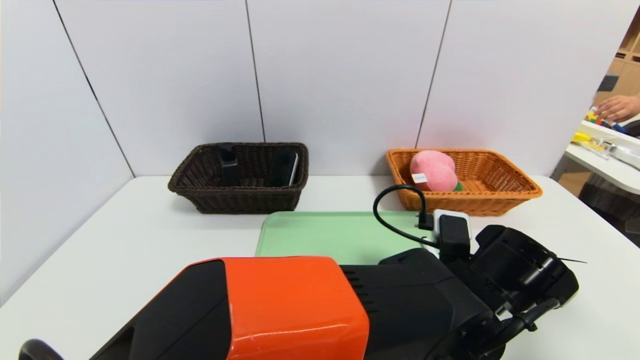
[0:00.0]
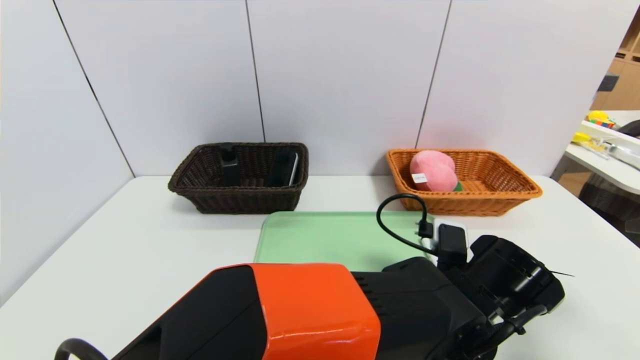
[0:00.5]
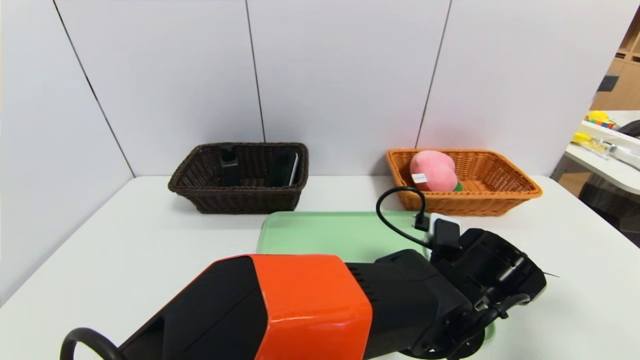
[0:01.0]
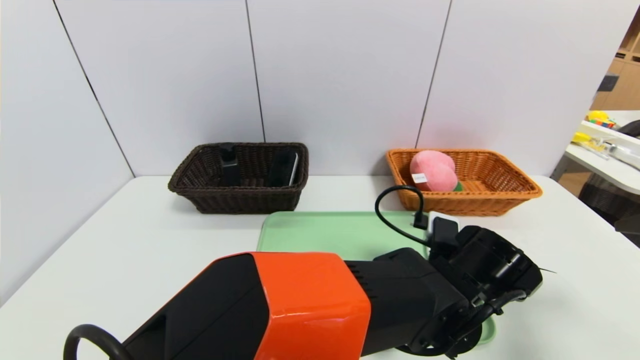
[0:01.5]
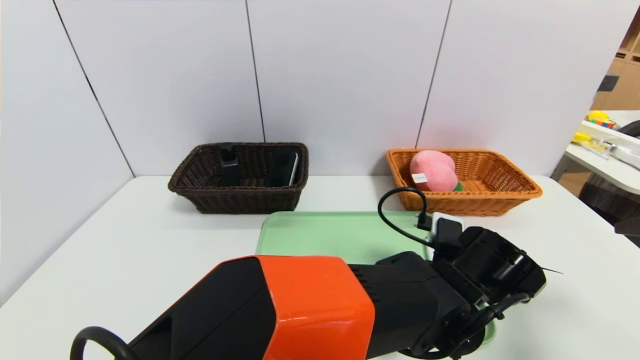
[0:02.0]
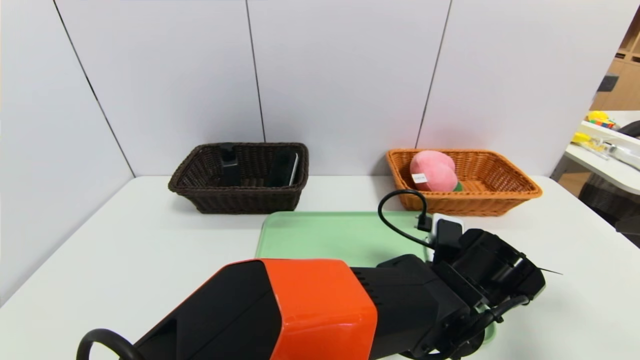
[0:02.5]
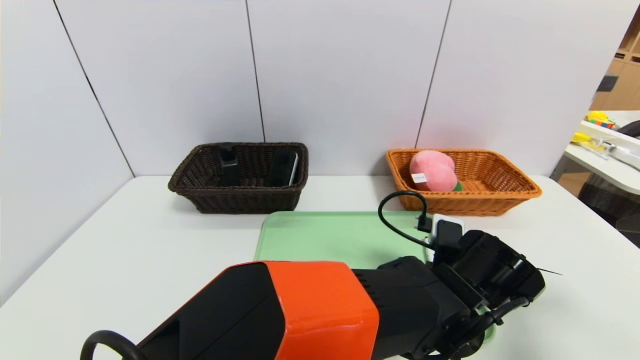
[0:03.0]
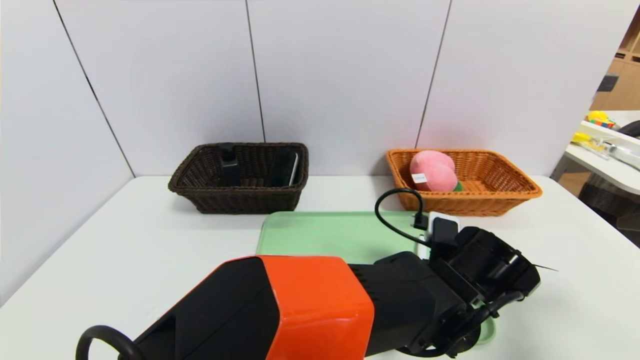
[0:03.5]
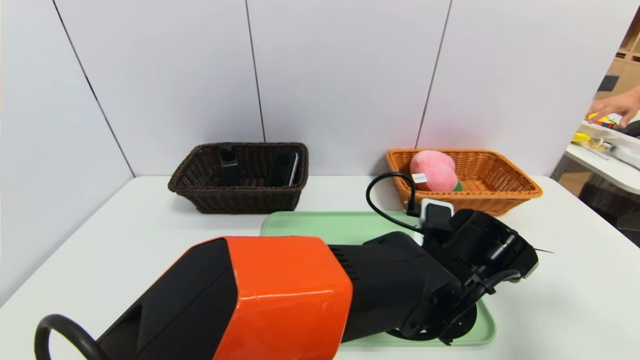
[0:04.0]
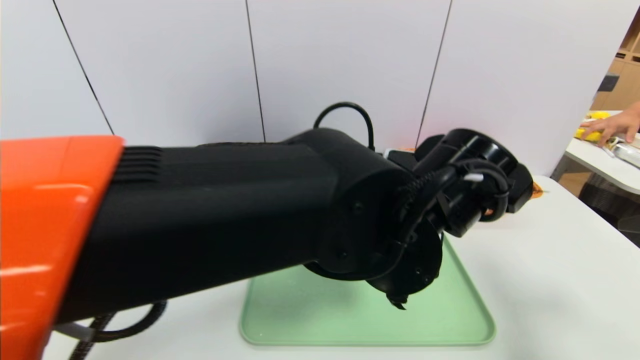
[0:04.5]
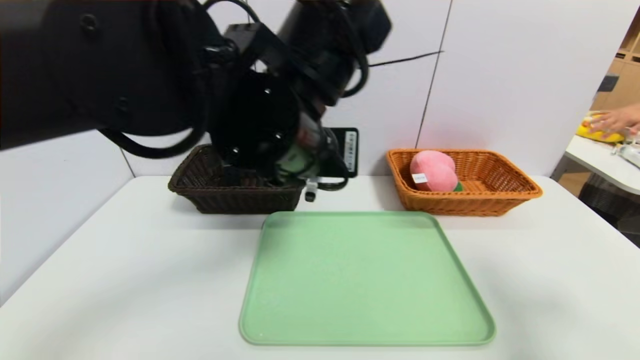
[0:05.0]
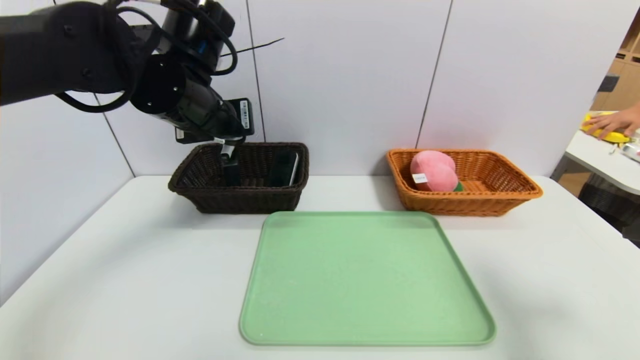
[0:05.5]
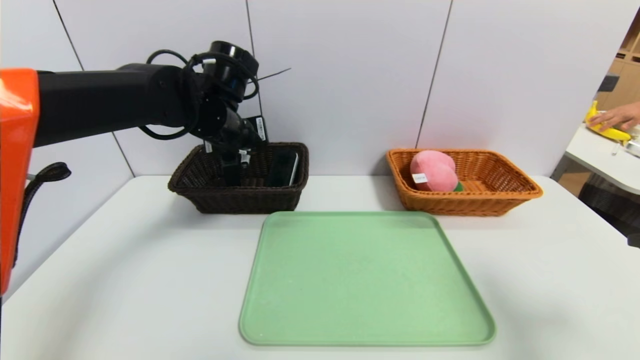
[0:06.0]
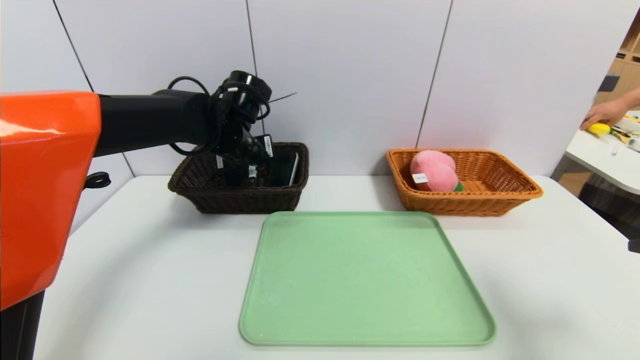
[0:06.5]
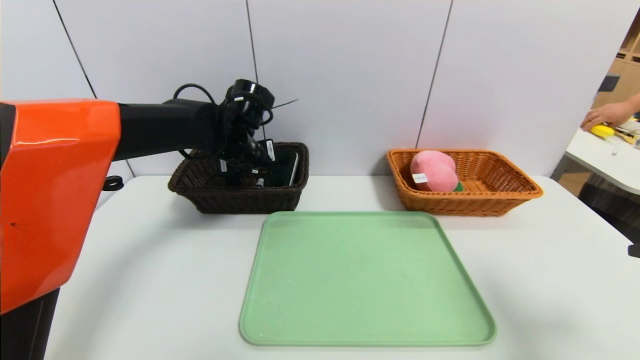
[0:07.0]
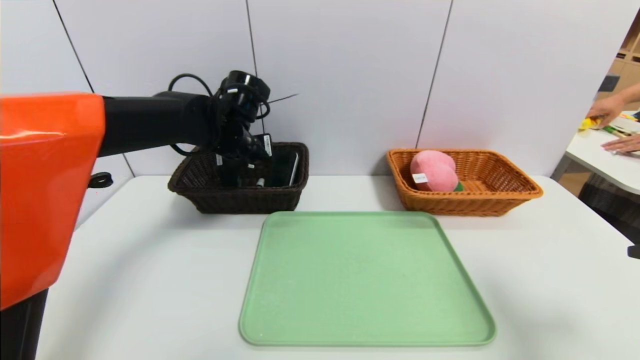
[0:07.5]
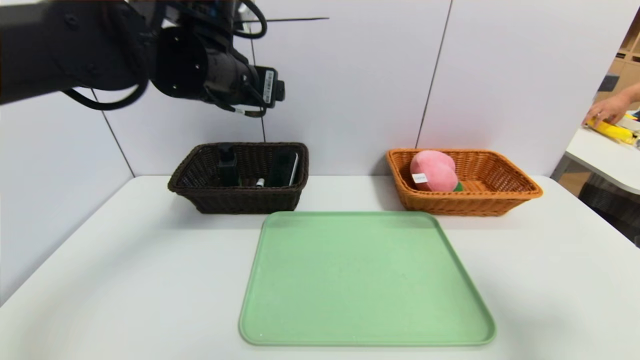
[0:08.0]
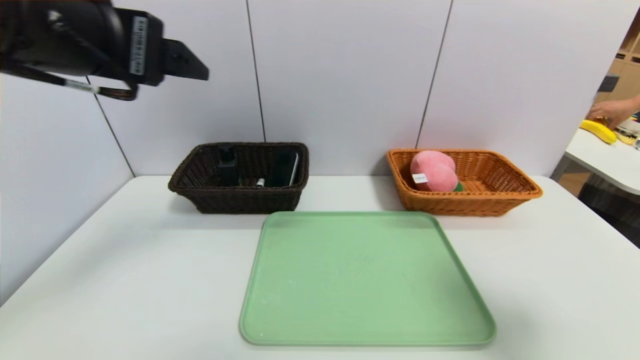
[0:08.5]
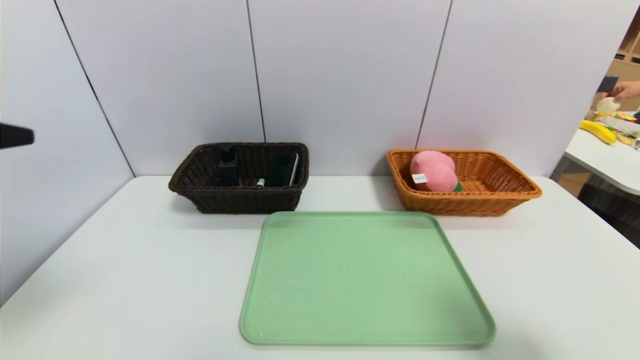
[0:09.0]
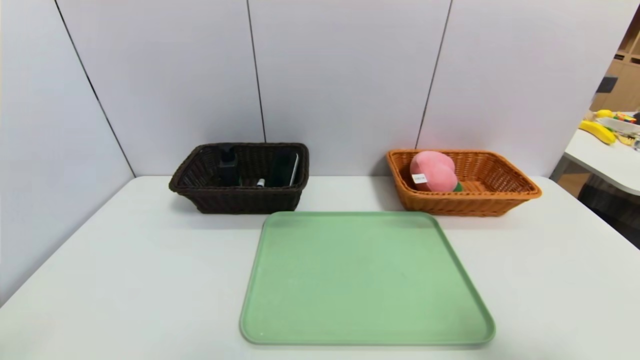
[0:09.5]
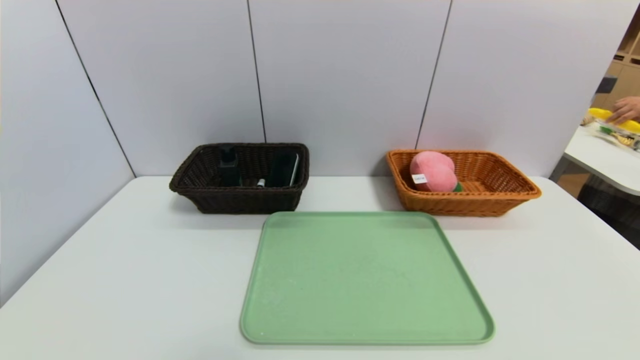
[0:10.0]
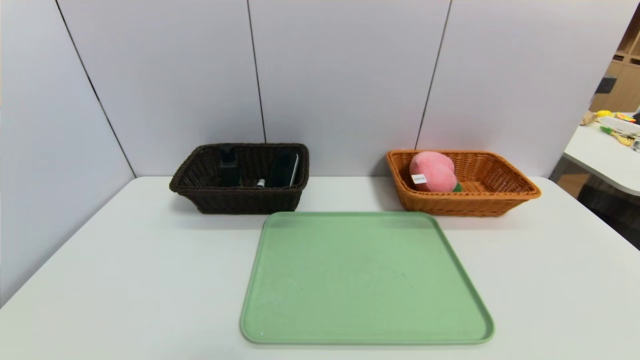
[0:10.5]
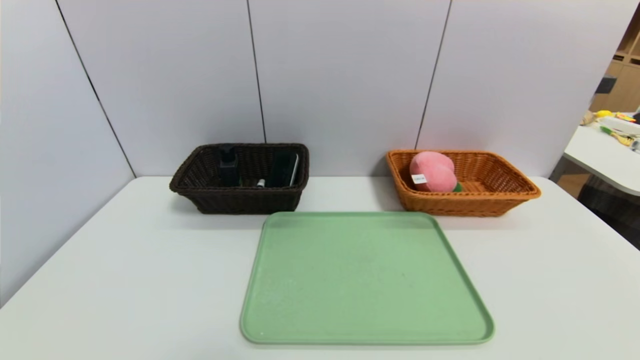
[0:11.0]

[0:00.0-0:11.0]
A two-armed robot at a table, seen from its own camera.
Task of the whole recording: place the food in the right basket with the right gripper, and place the non food items in the left basket with the left gripper.
Step, 0:00.0 to 0:08.0: Grasp the black marker and put it in the left basket.
0:00.0 to 0:02.0: There are only small adjustments of the grippers.
0:02.0 to 0:03.5: The left gripper closes.
0:03.5 to 0:05.5: The left gripper moves to the left and upward, roughly 35 cm.
0:05.5 to 0:07.5: The left gripper moves forward and downward, roughly 10 cm, and opens up.
0:07.5 to 0:09.0: The right gripper shifts by roughly 5 cm. Meanwhile the left gripper goes approximately 40 cm backward, to the left and upward.
0:09.0 to 0:11.0: Both grippers travel together backward and downward, about 20 cm.

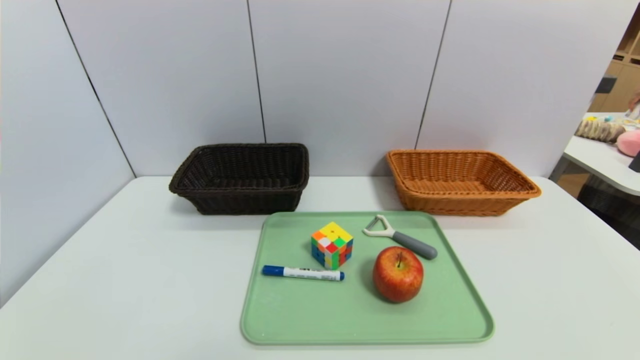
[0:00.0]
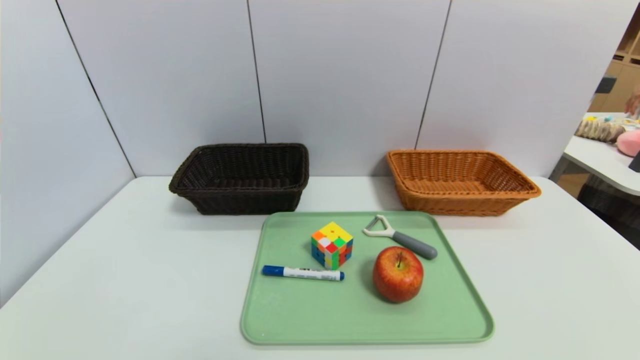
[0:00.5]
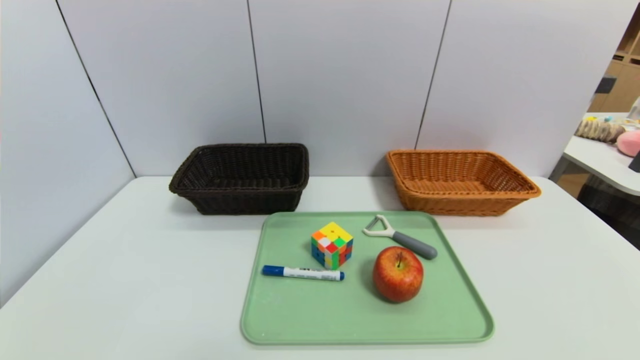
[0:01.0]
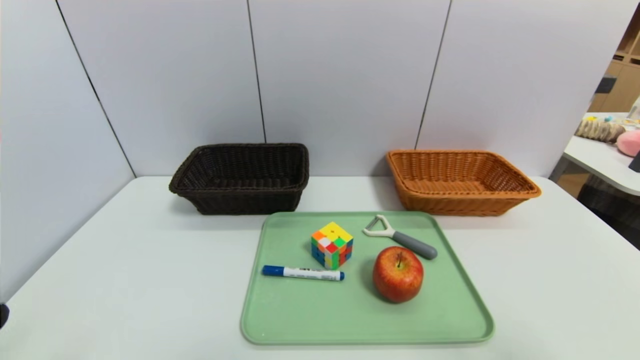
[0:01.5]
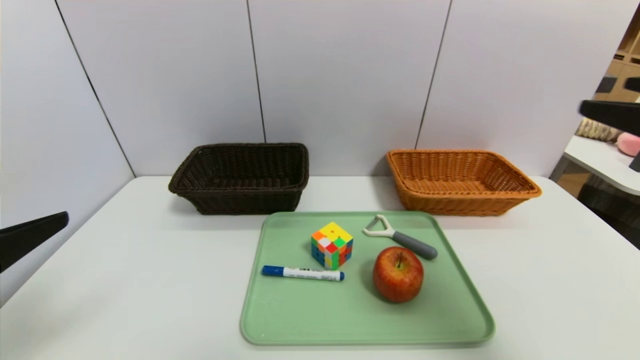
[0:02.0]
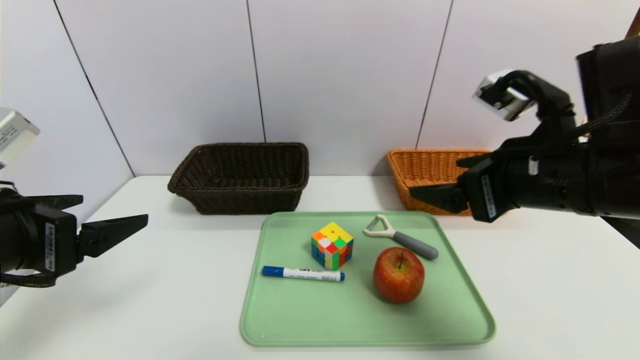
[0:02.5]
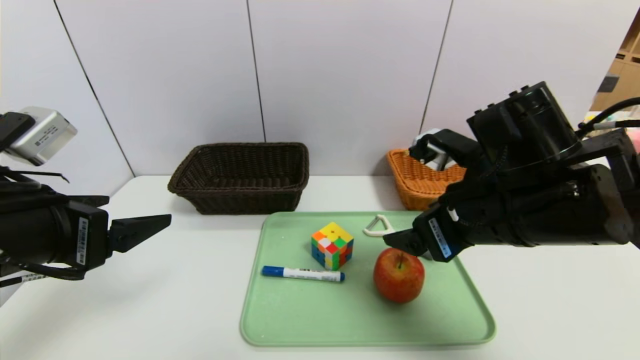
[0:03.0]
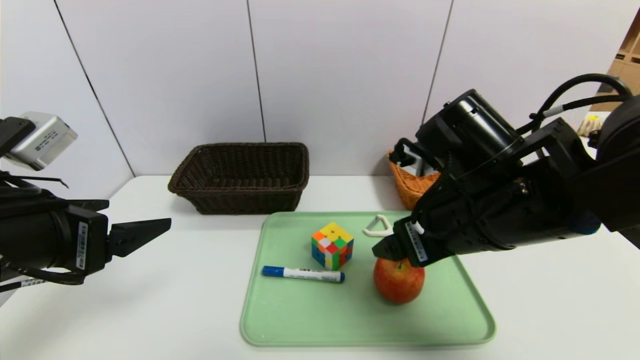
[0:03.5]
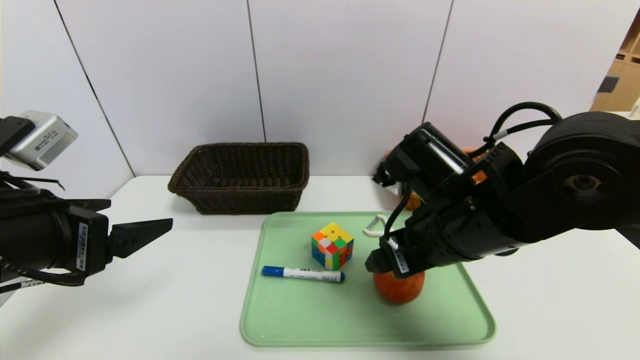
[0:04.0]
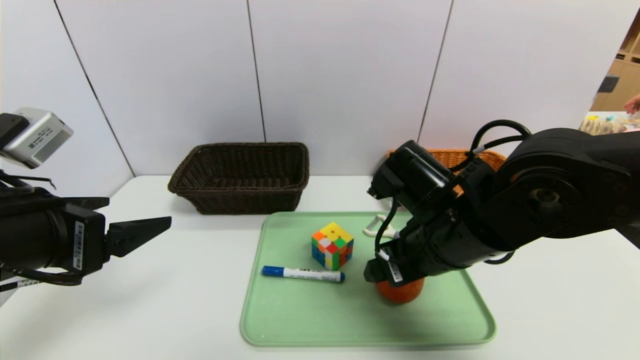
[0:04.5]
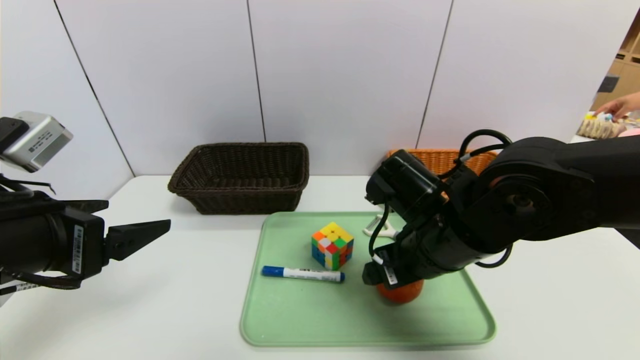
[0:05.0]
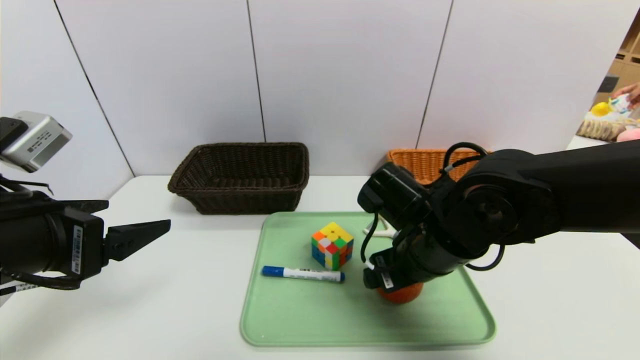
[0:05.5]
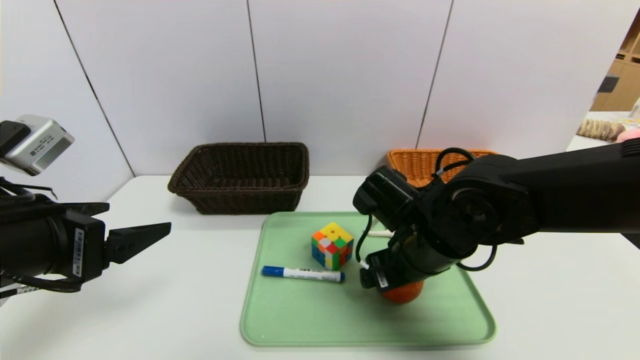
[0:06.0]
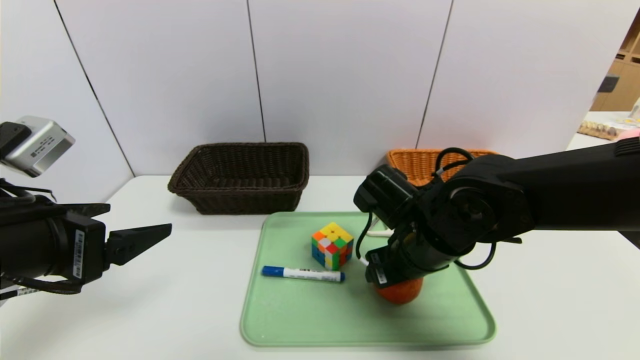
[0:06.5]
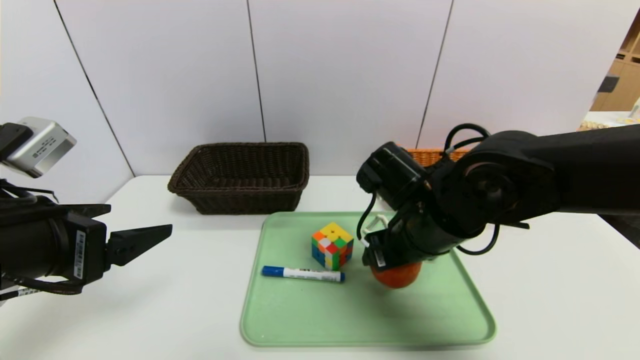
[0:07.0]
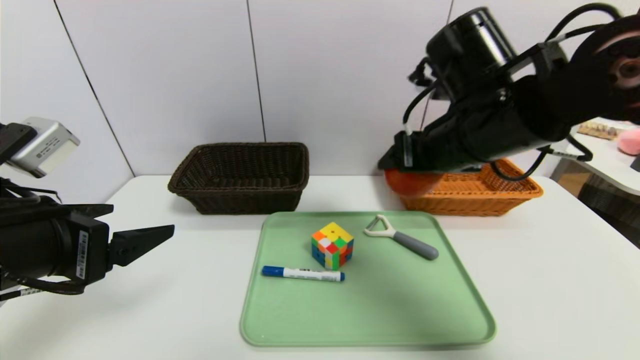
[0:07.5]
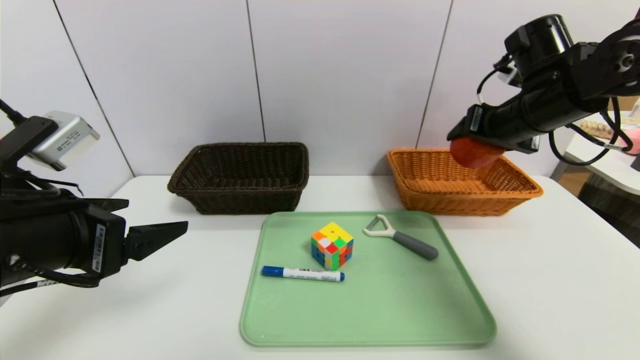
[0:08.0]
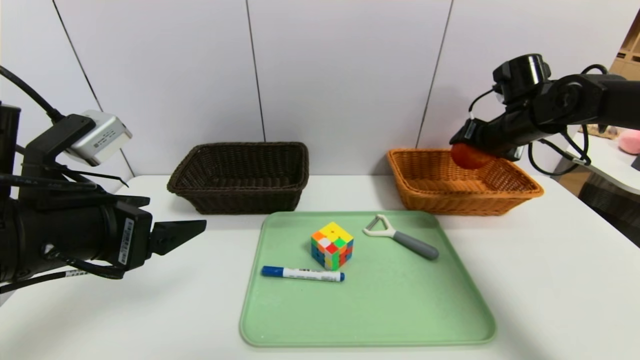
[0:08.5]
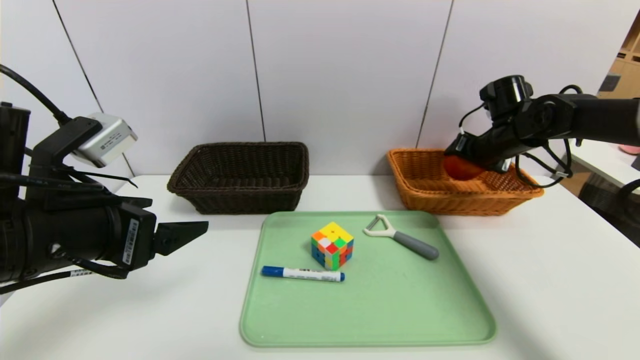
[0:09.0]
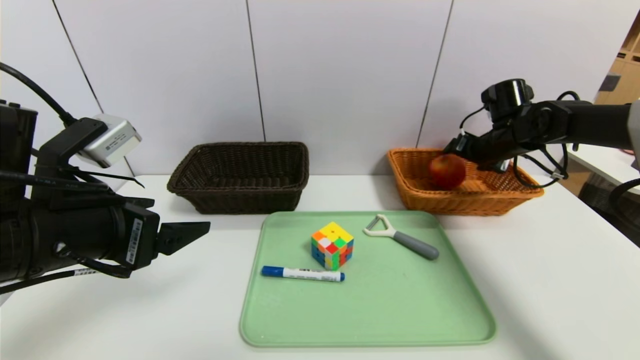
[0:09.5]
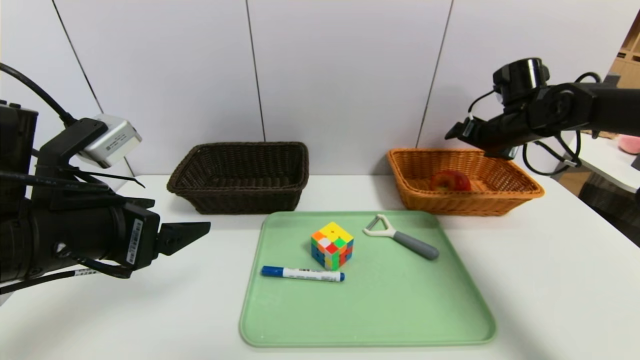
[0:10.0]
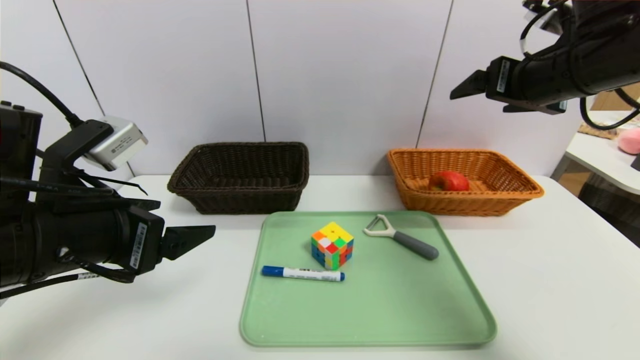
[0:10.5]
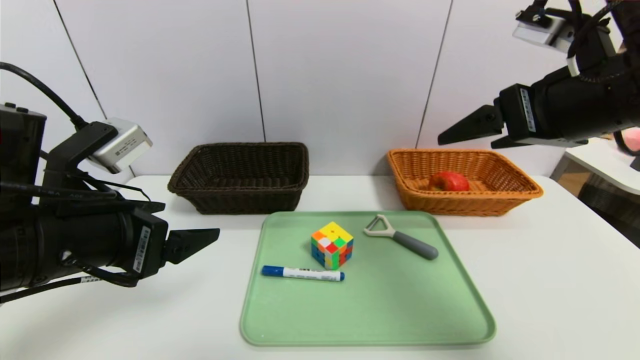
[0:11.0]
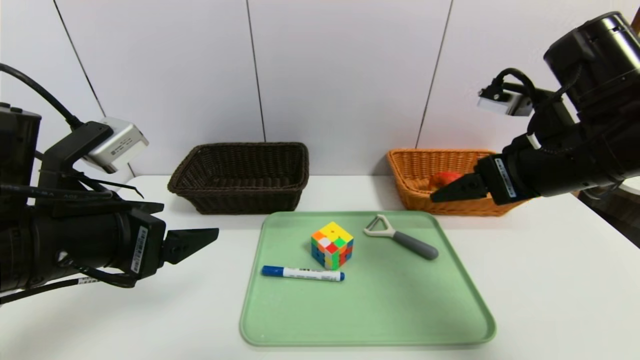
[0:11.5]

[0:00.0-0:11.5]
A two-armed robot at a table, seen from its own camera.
Task of the whole recording: place the food in the right basket with the right gripper, and place the non food items in the left basket with the left gripper.
Step, 0:00.0 to 0:10.0: Grasp the apple and put it in the right basket.
0:00.0 to 0:02.0: Both grippers move upward and forward, about 25 cm.
0:02.0 to 0:04.0: The right gripper shifts roughly 20 cm to the left, downward and forward. Meanwhile the left gripper shifts some 5 cm forward.
0:04.0 to 0:06.0: The right gripper travels downward by roughly 5 cm.
0:06.0 to 0:07.5: The right gripper shifts some 15 cm upward.
0:07.5 to 0:09.5: The right gripper goes approximately 25 cm forward, to the right and downward.
0:09.5 to 0:11.5: The right gripper goes about 25 cm backward and to the left.
